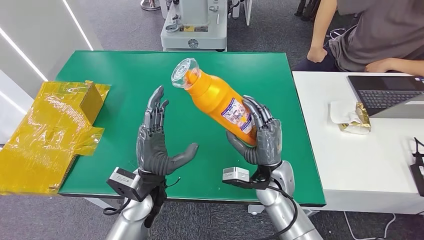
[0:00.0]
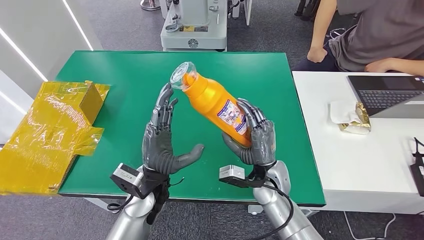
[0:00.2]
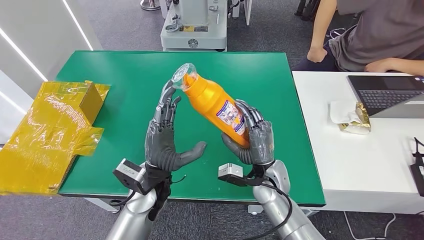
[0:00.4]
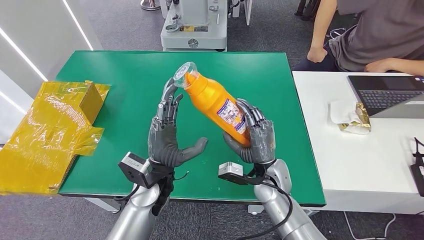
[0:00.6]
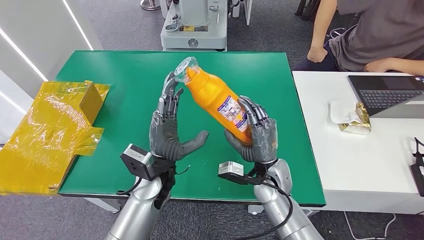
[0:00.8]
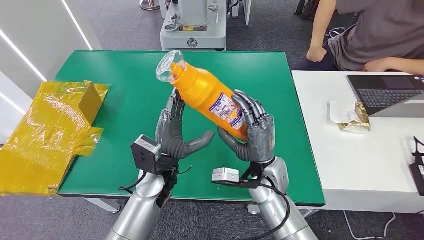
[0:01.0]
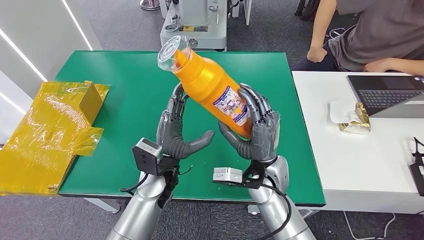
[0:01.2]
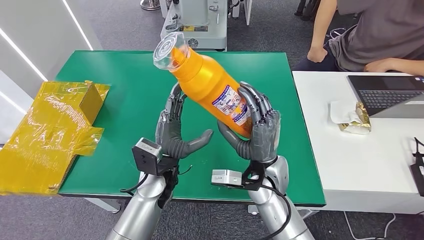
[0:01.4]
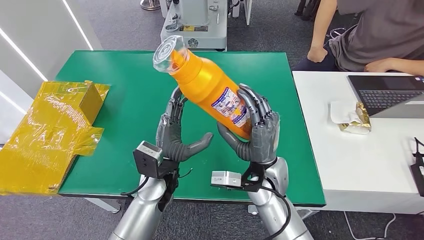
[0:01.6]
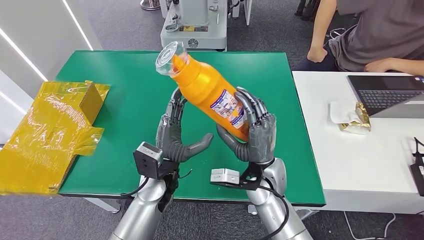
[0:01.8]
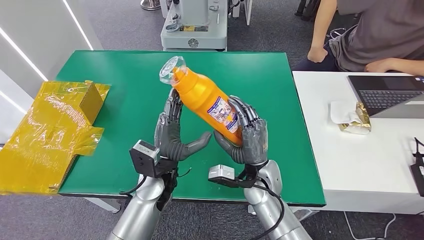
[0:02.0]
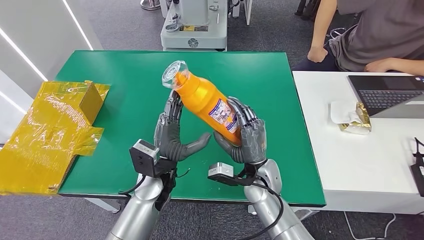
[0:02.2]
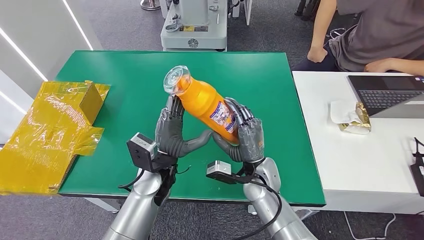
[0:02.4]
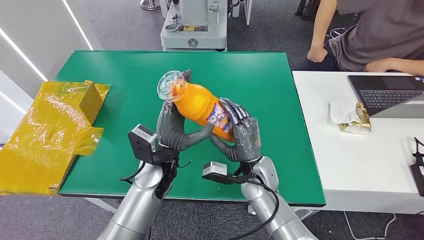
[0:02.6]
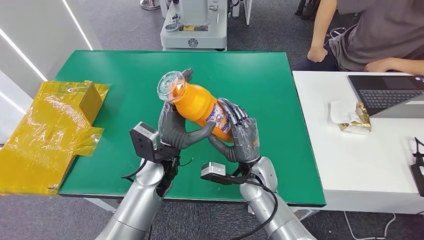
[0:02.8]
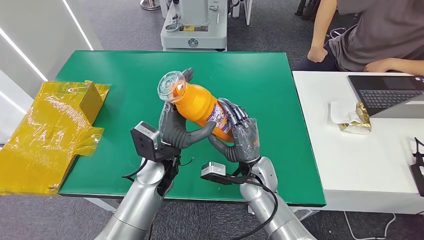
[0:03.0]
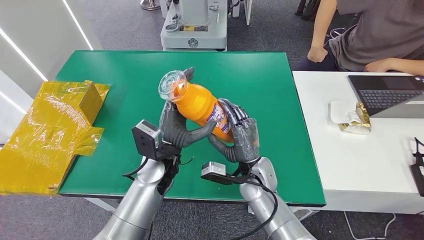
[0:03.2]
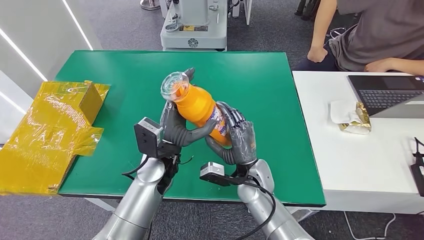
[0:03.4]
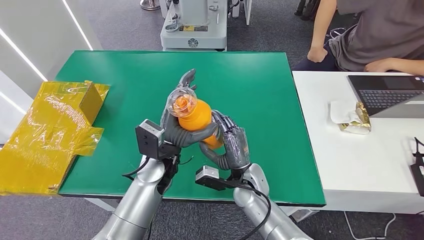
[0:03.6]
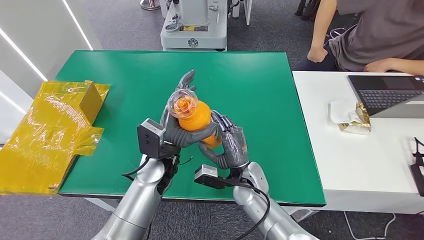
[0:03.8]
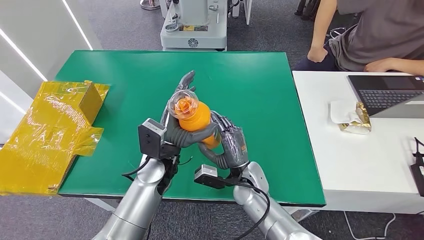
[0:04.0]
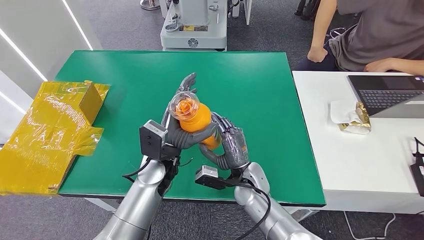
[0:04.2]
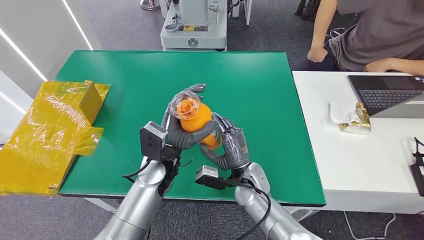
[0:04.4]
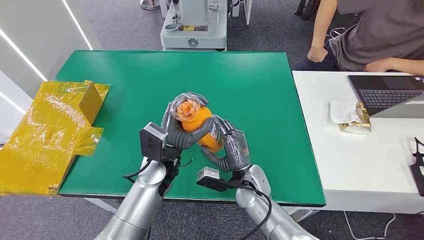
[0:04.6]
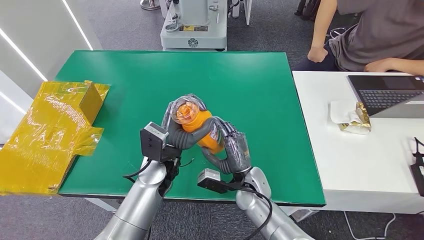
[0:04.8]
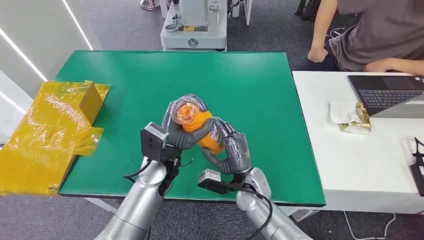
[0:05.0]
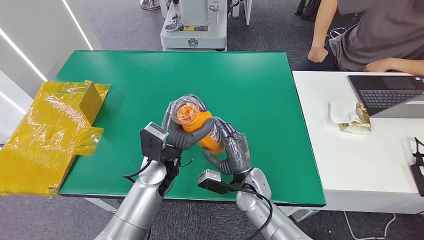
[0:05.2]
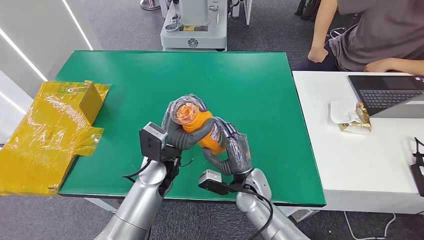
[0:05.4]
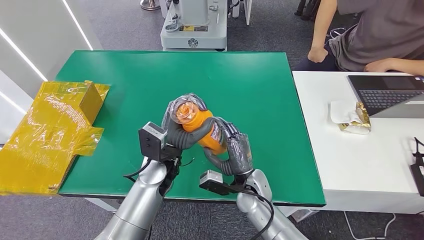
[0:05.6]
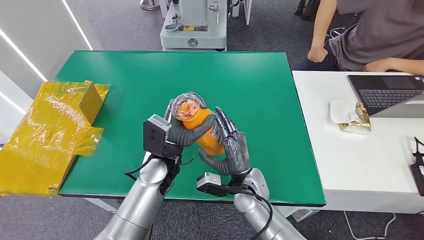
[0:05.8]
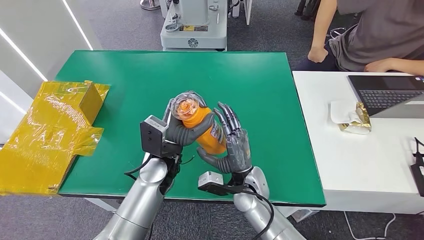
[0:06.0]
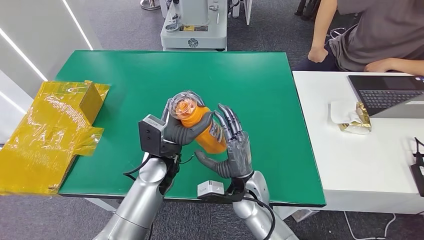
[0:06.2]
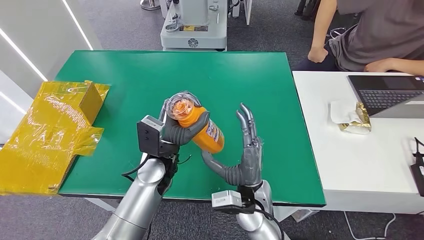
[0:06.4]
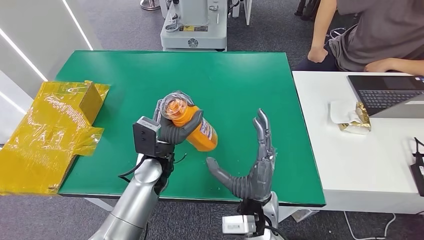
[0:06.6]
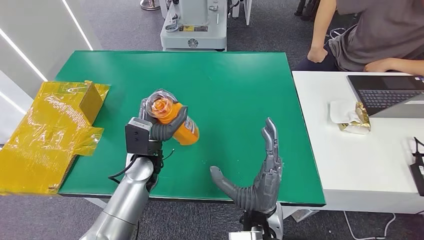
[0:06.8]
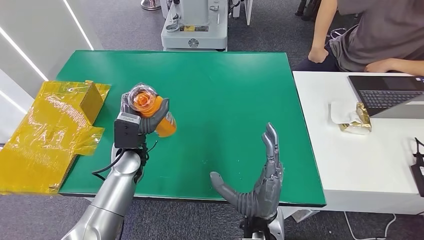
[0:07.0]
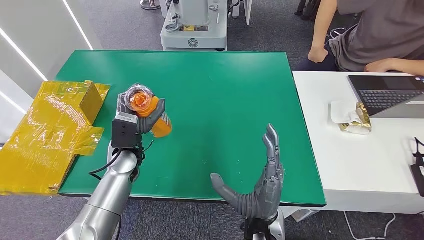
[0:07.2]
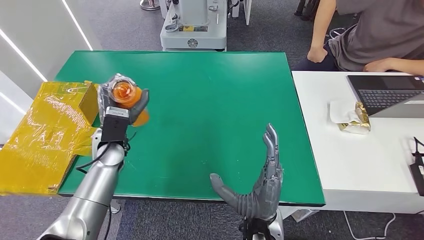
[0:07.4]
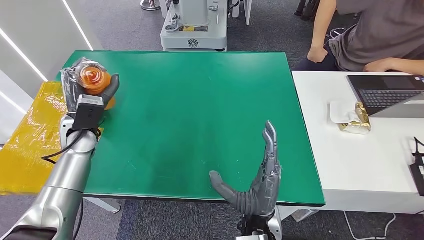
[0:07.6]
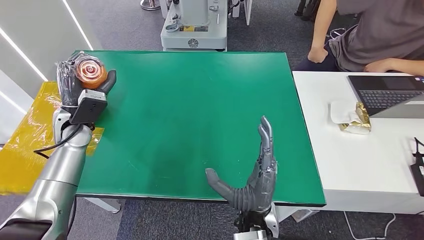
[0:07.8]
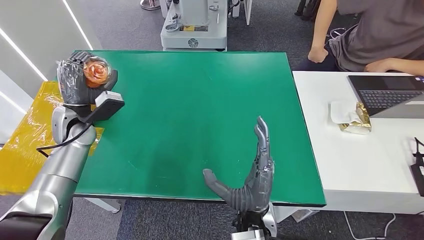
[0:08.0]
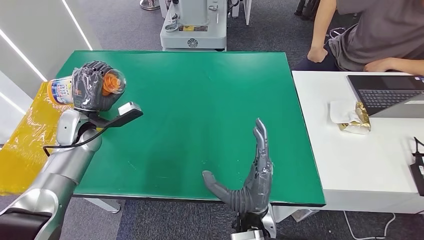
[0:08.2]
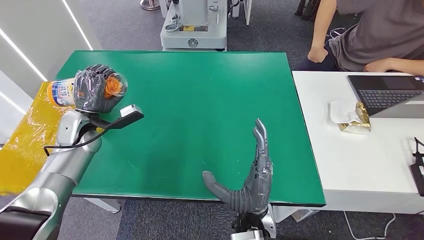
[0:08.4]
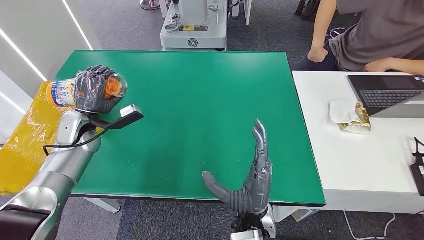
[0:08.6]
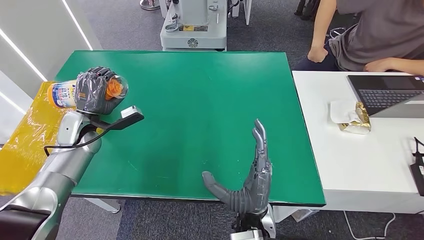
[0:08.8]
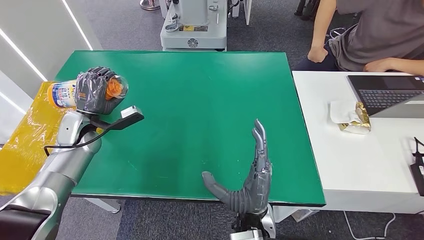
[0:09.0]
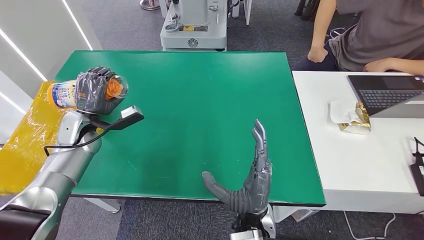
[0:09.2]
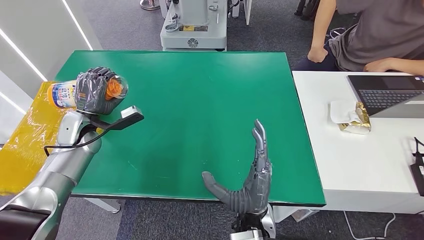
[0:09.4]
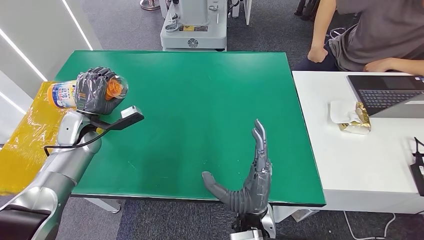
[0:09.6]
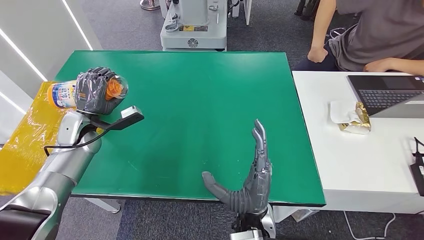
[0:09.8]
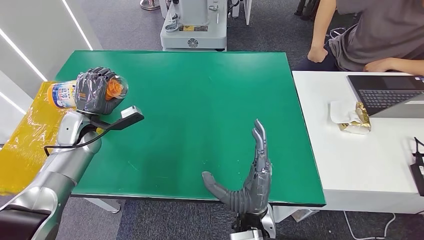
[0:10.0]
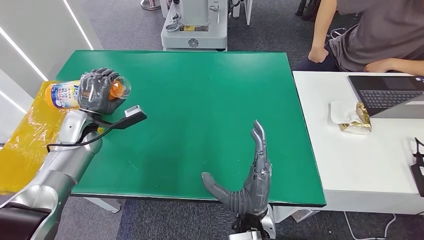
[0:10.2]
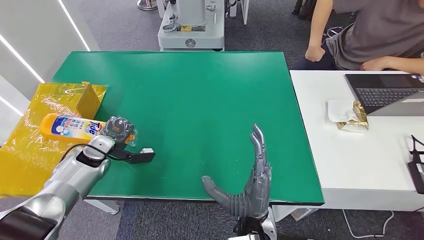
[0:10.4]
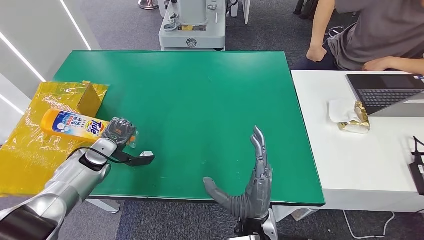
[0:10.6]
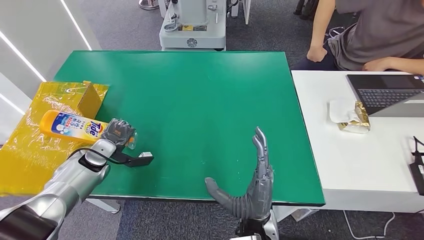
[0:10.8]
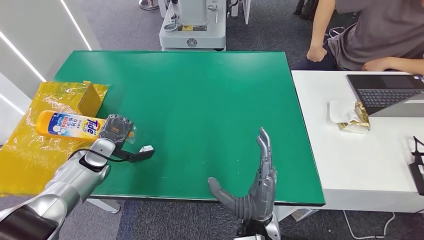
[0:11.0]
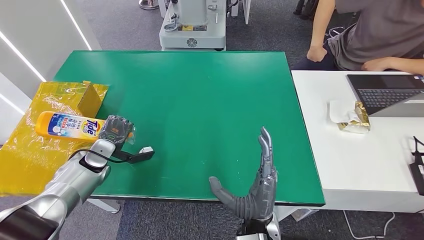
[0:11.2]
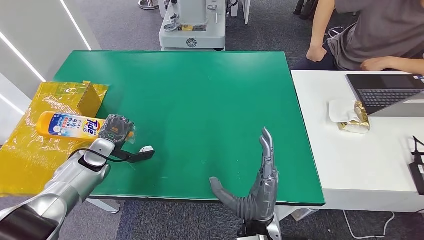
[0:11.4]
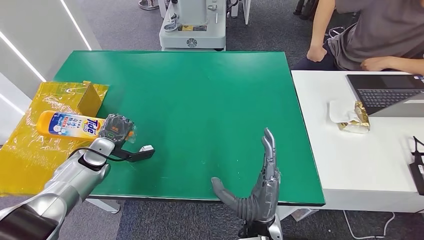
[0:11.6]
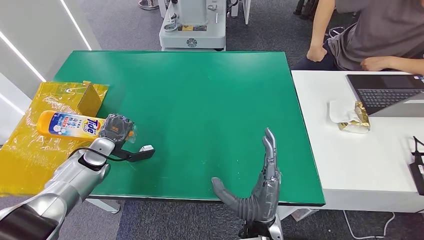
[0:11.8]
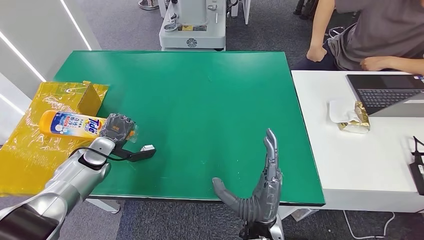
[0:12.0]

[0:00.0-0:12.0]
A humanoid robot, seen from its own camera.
0:00.0 to 0:01.6: The right hand ends up about 5 cm from where it was.
0:01.6 to 0:03.0: The right hand moves downward, roughly 5 cm.
0:03.0 to 0:06.0: The hands stay close to where they were, moving slightly.
0:06.0 to 0:07.6: The left hand is displaced to the left by roughly 20 cm. Meanwhile the right hand travels backward and upward by roughly 10 cm.
0:07.6 to 0:09.0: The left hand ends up approximately 5 cm from where it was.
0:09.0 to 0:10.4: The left hand moves downward, some 5 cm.
0:10.4 to 0:12.0: The hands stay close to where they were, moving slightly.

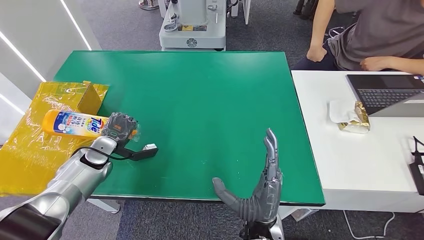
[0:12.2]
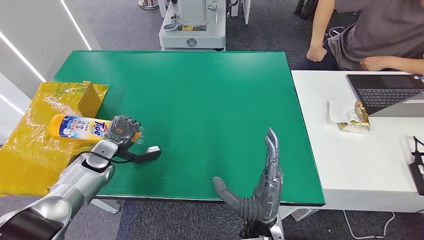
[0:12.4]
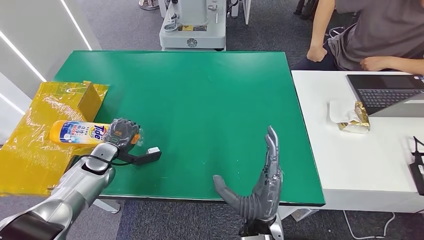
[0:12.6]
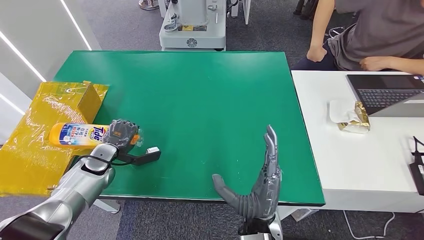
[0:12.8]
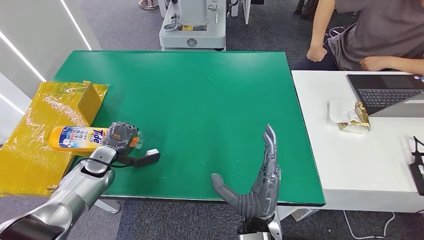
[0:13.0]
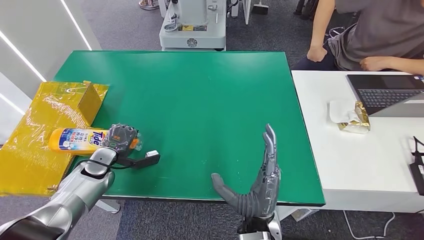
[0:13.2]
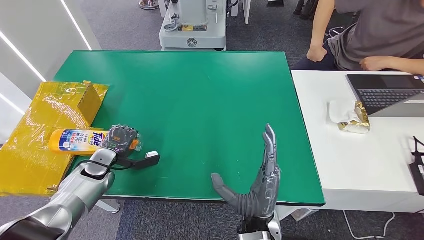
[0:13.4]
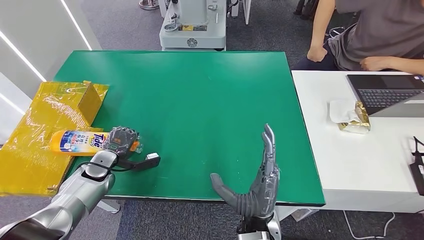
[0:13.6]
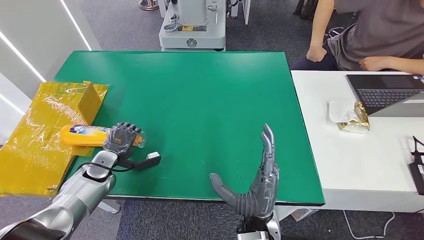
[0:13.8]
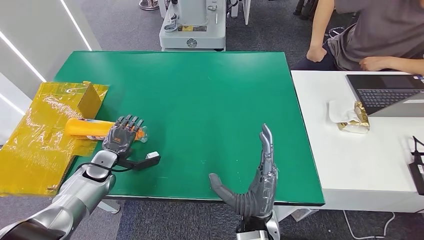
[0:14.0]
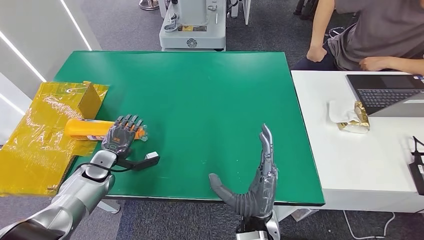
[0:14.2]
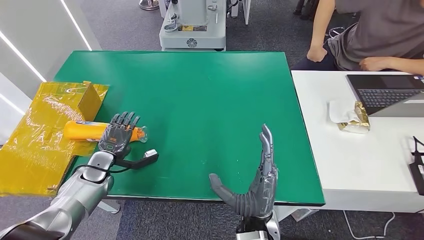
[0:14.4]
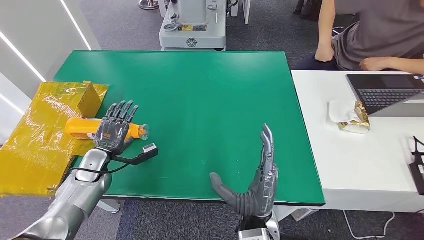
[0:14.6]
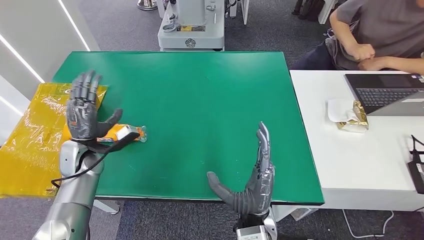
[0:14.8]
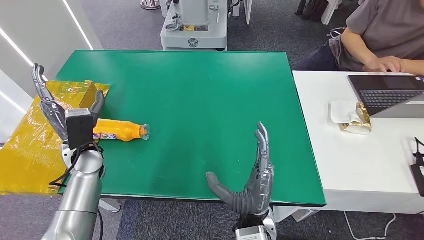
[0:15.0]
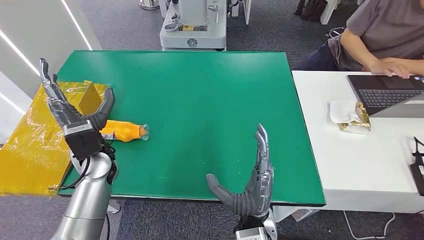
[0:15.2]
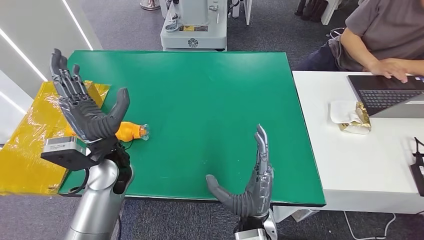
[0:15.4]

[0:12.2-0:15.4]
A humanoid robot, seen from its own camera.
Step, 0:12.2 to 0:15.4: Turn the bottle to the front side.
0:12.2 to 0:13.8: The left hand shifts by some 5 cm.
